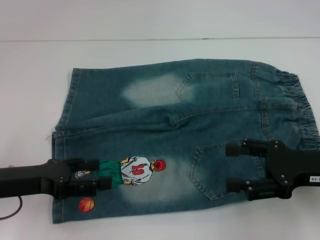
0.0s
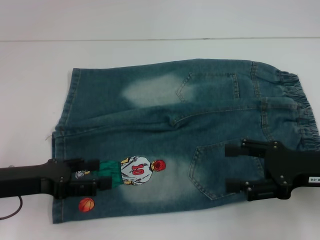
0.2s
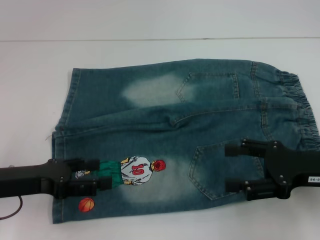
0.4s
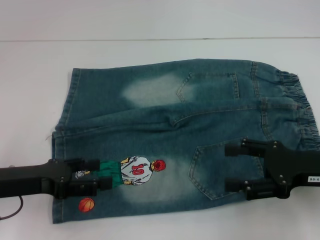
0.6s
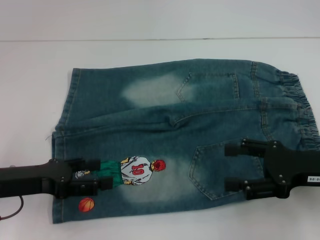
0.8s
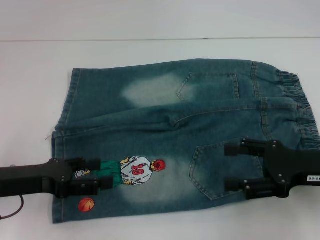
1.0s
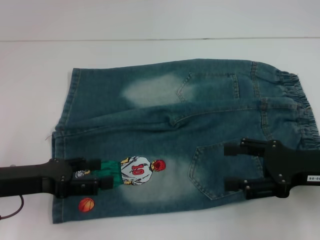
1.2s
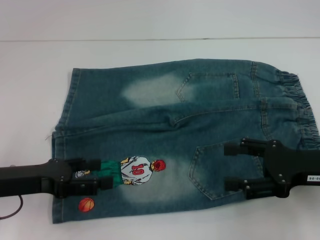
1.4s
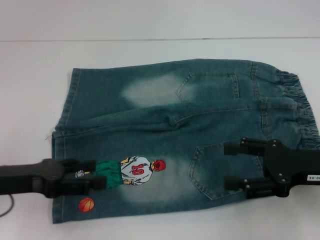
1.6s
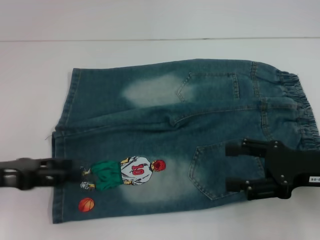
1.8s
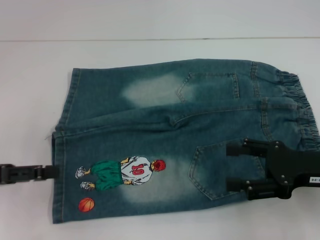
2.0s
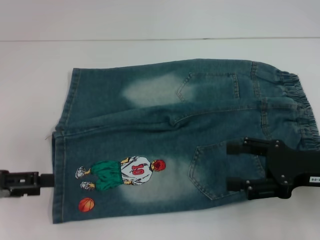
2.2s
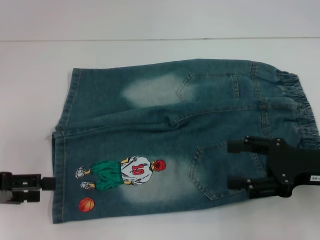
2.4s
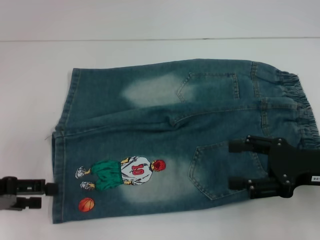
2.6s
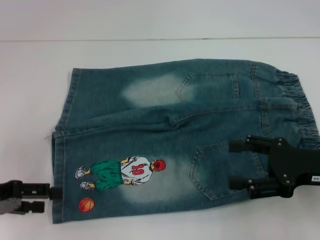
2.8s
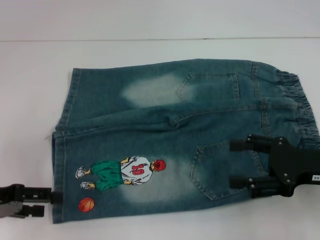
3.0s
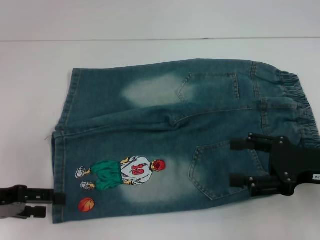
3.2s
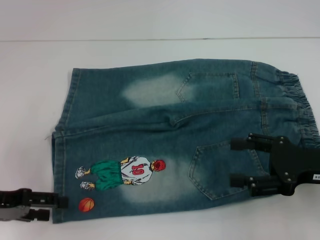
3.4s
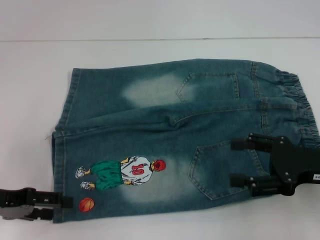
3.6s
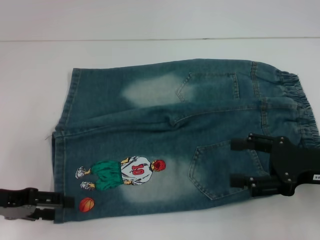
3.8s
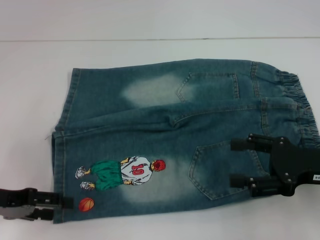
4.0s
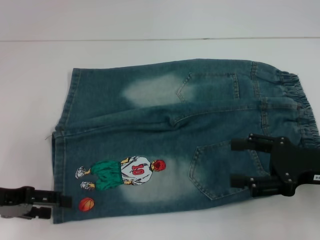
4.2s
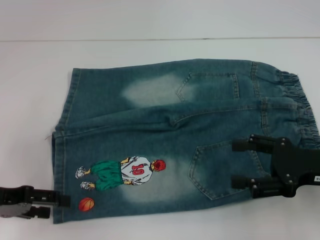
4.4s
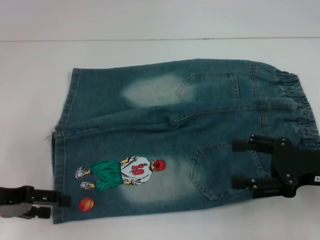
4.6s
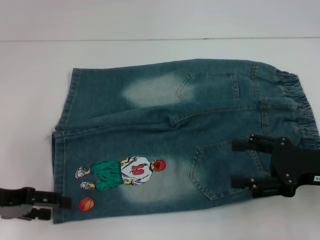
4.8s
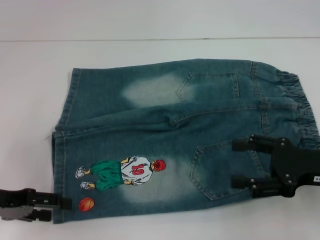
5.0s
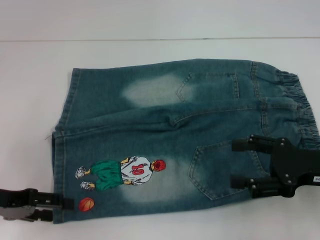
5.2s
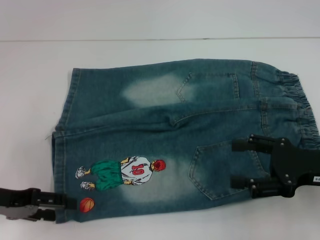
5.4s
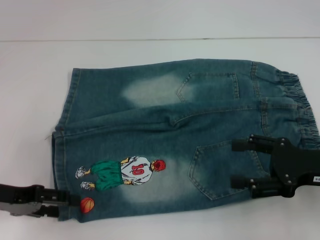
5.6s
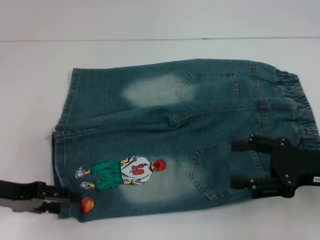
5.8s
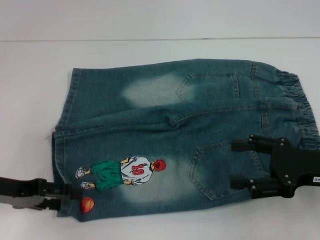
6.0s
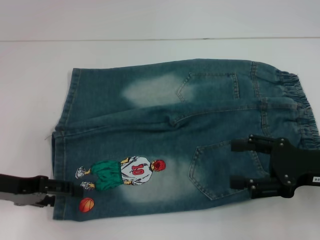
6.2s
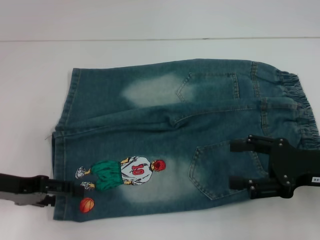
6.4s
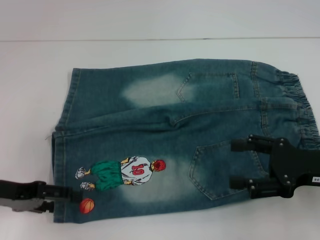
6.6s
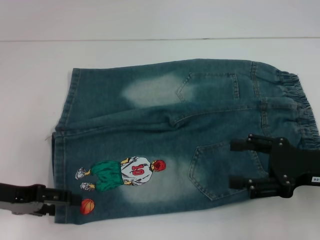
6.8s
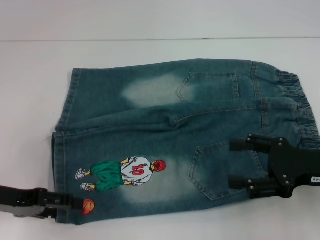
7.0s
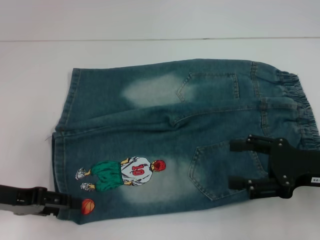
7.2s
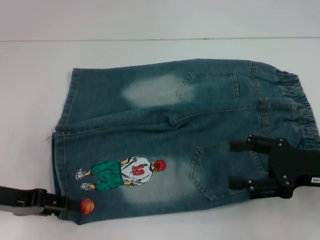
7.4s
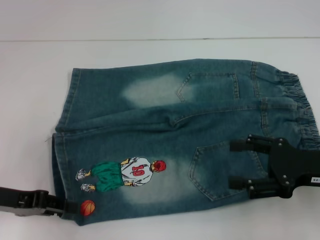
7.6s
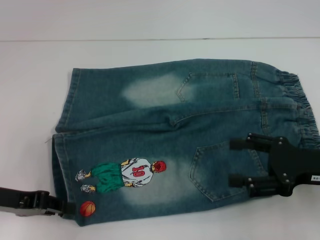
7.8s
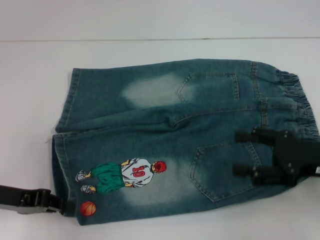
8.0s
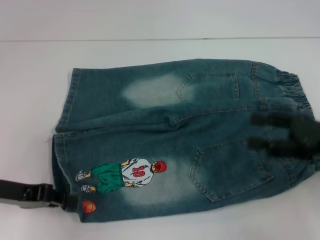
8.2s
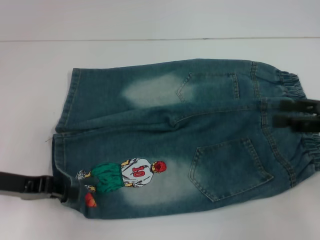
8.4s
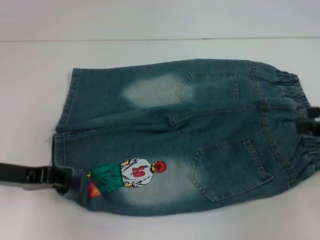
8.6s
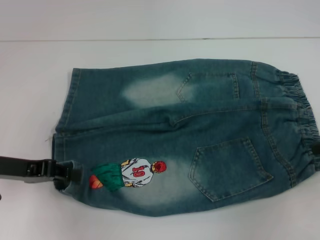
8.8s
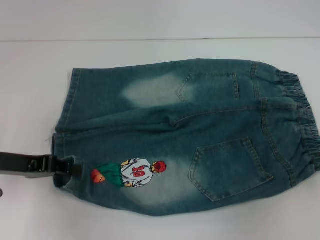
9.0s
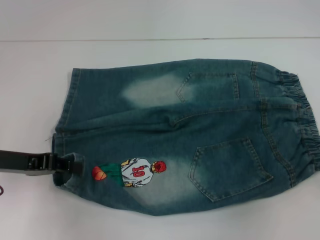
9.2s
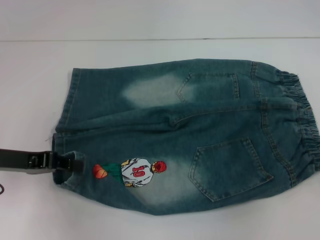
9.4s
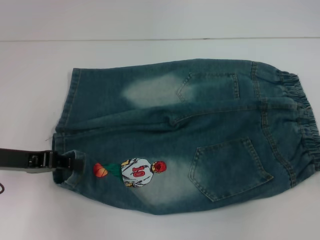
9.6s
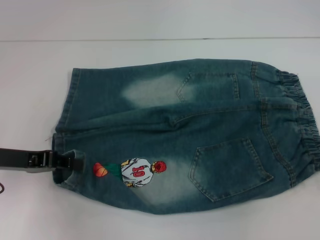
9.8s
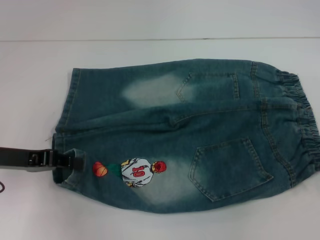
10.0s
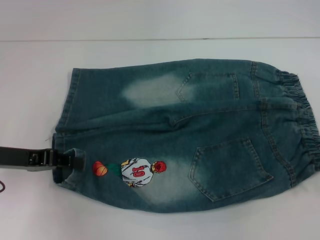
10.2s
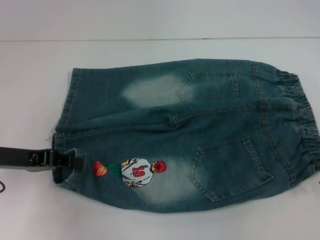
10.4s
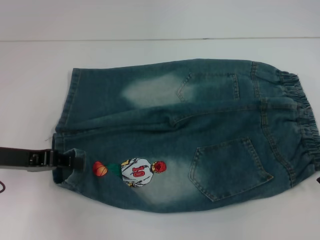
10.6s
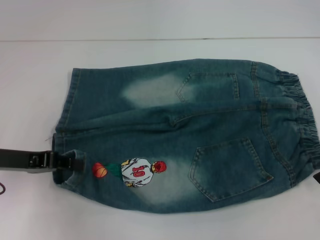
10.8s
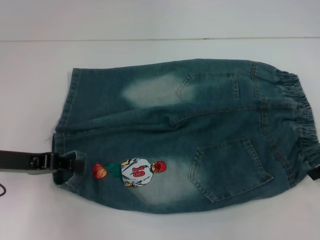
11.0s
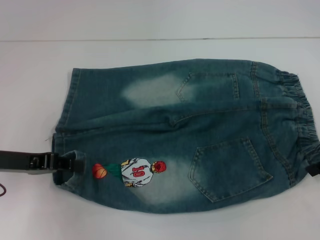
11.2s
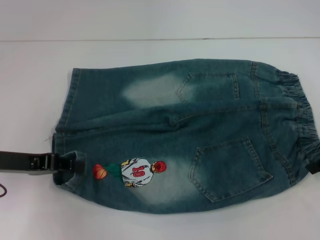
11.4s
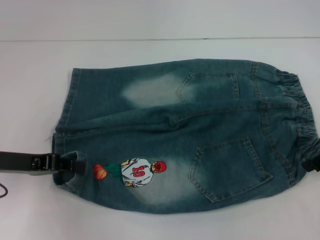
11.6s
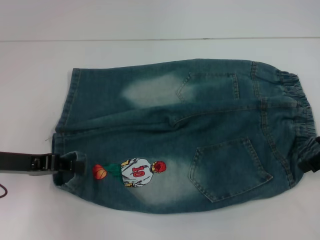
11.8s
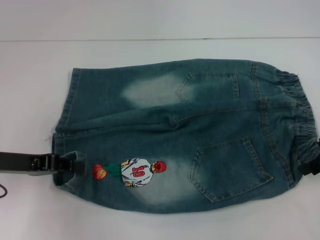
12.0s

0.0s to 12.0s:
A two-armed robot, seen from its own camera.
Step, 0.0s to 7.6s: Grab the lower left pant leg with your left hand.
0.0s to 1.6s: Neither gripper changes place.
1.6s to 3.0s: The left gripper heads to the left, covering approximately 5 cm.
3.0s to 6.0s: The grippers stay close to where they were, moving slightly.
6.0s to 7.6s: The two grippers keep their place.
7.6s to 9.0s: The right gripper is displaced to the right and upward by approximately 10 cm; the left gripper closes.
10.4s to 12.0s: The grippers move only a little.

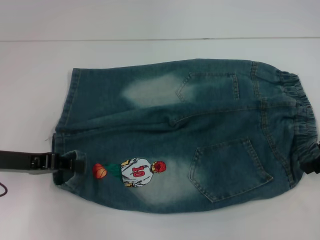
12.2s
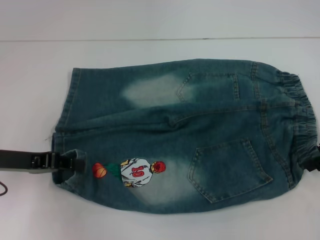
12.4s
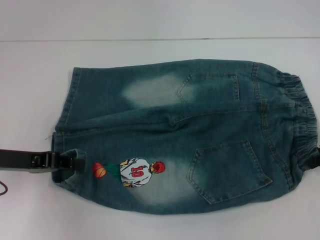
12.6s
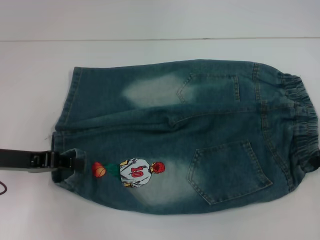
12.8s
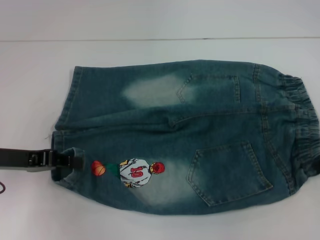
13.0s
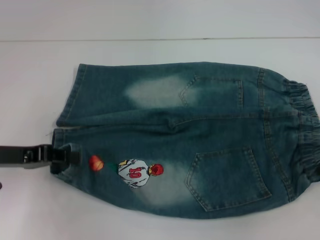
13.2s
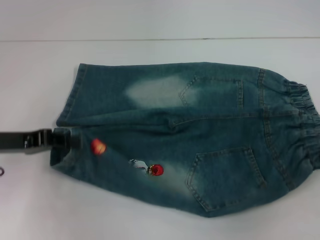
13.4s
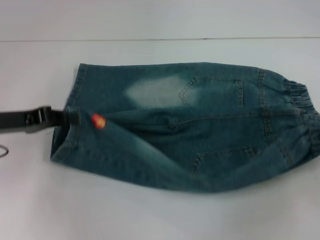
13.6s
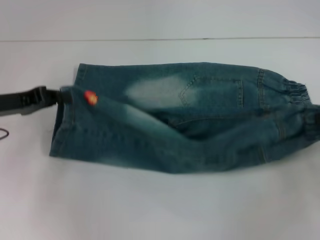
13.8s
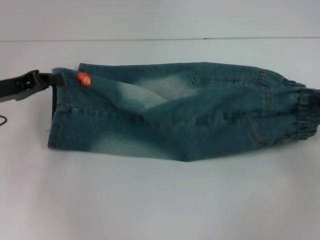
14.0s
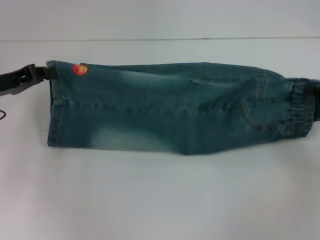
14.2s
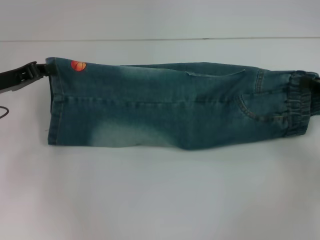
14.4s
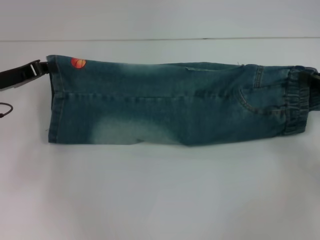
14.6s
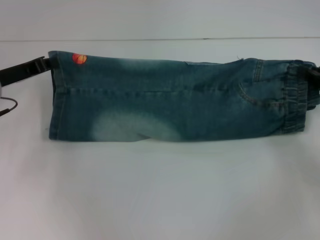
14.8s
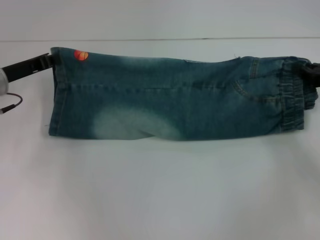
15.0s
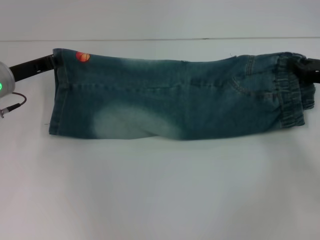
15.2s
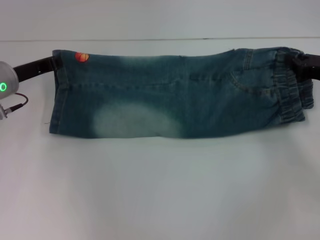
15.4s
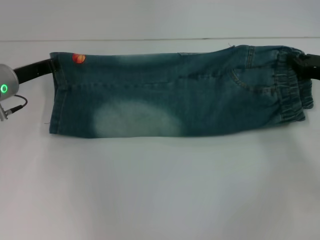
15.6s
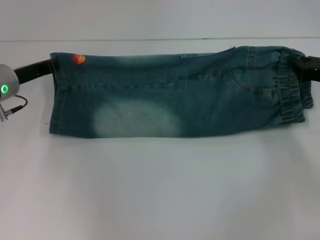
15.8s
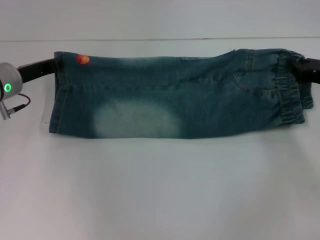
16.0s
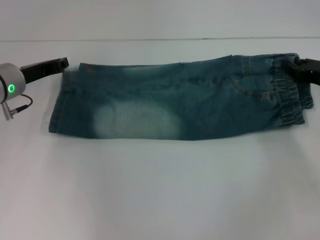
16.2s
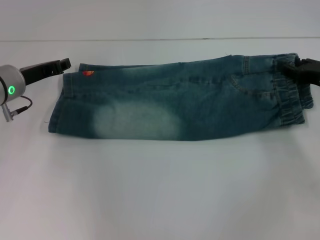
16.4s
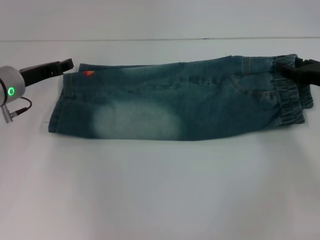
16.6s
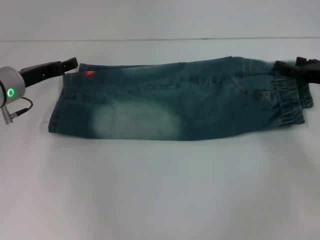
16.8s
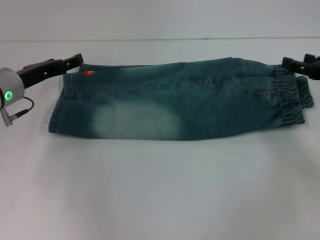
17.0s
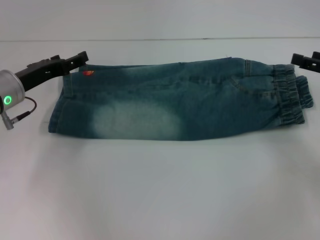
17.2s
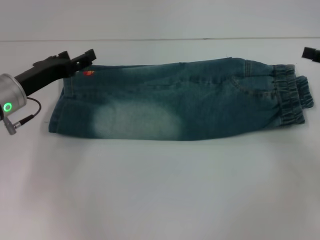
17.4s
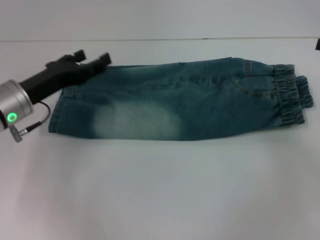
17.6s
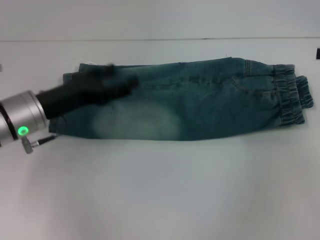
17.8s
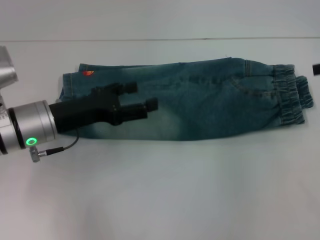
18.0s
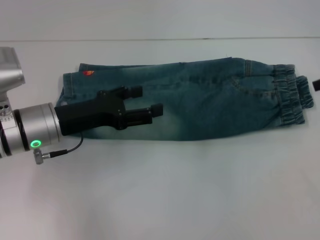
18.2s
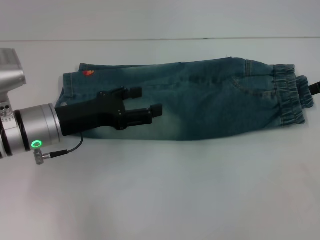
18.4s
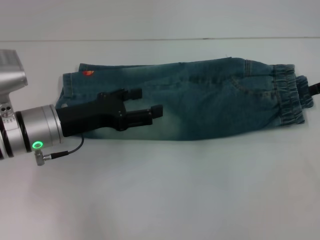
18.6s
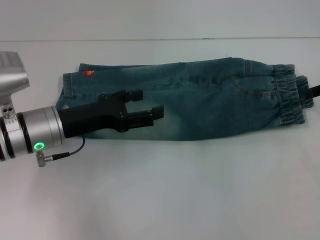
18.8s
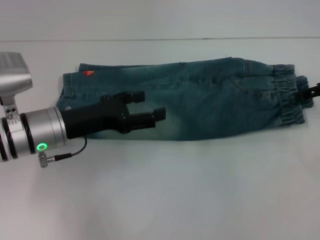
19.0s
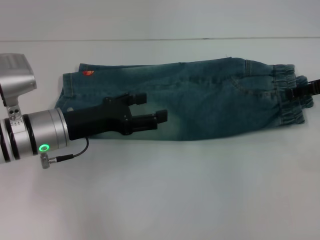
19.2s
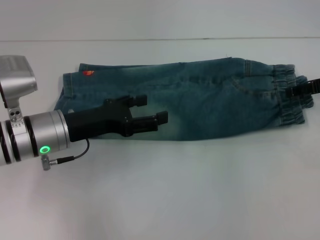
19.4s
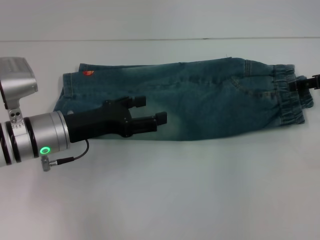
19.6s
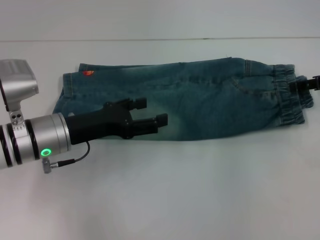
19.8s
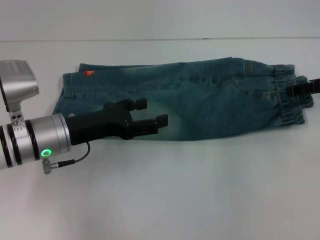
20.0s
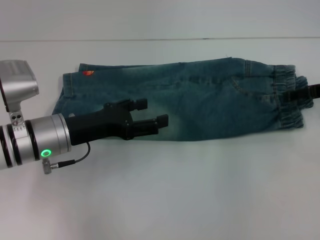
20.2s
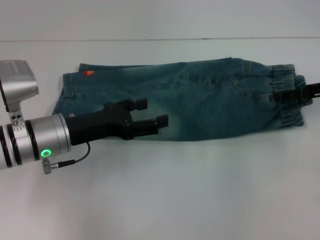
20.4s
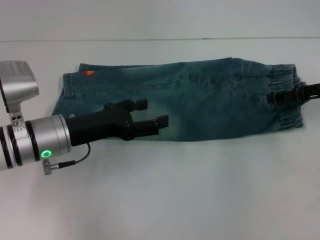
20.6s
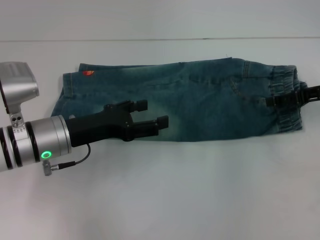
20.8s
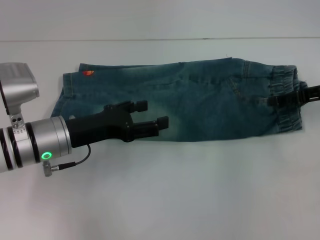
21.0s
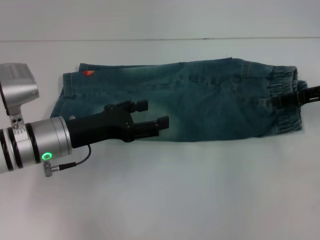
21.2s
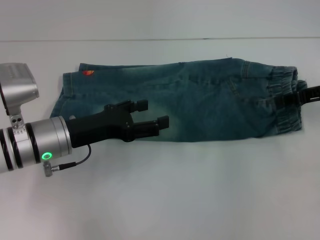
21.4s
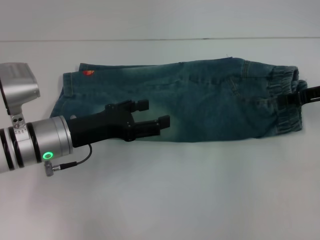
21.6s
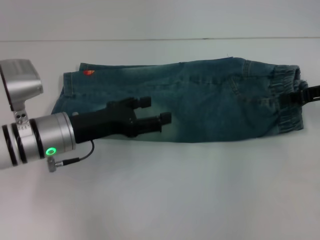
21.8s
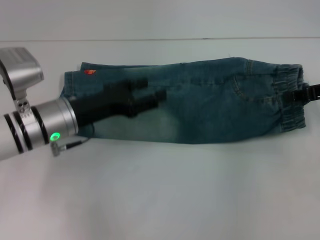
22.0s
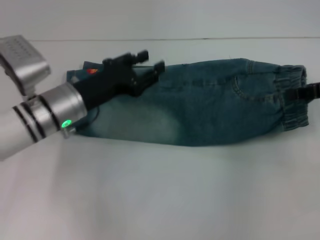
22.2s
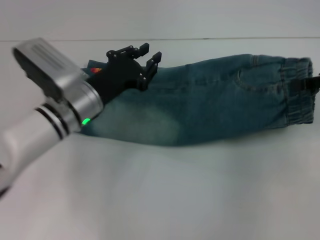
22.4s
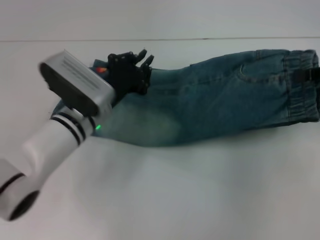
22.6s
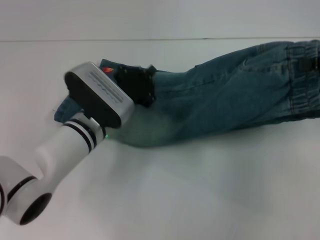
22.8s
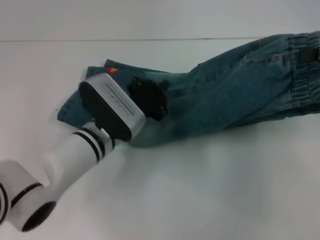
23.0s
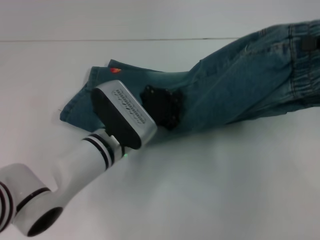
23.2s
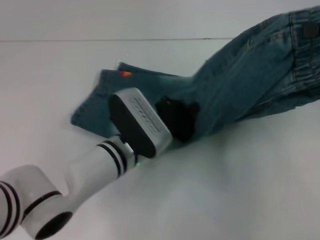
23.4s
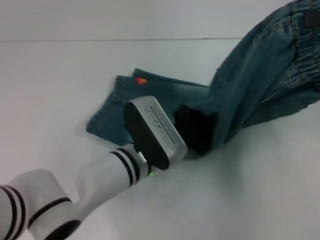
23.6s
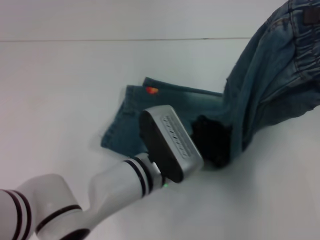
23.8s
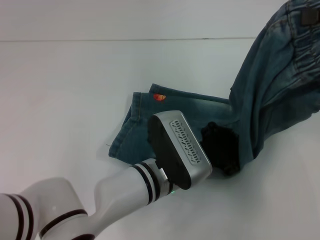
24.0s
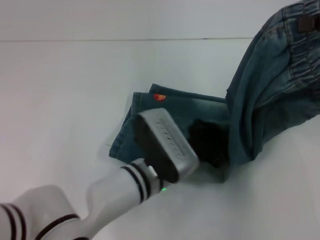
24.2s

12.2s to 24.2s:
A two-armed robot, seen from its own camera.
Step, 13.2s to 16.4s: Fold upward with your left hand.
Step, 16.6s to 16.8s: Fold upward with your right hand.
Step, 17.0s to 21.8s: Grab the waistband with your right hand.
Step, 22.0s to 24.0s: Press the middle of the pants with your left hand.
12.2s to 13.8s: The right gripper goes some 5 cm to the right, and closes; the left gripper changes place by about 5 cm.
13.8s to 15.2s: The right gripper is displaced forward and to the left by some 10 cm. Meanwhile the left gripper shifts approximately 5 cm forward.
15.2s to 16.6s: The left gripper opens its fingers.
16.6s to 18.2s: The left gripper shifts approximately 10 cm backward and to the right, and opens its fingers, while the right gripper moves upward, approximately 15 cm, and opens.
18.2s to 19.8s: The right gripper goes about 10 cm downward.
19.8s to 21.2s: The grippers stay close to where they were, moving slightly.
21.2s to 22.6s: The right gripper is displaced upward by some 5 cm, and closes up. The left gripper shifts about 5 cm to the right, and closes up.
22.6s to 24.2s: The left gripper shifts about 15 cm to the right and backward, and closes its fingers. Meanwhile the right gripper heads upward, covering approximately 5 cm.
